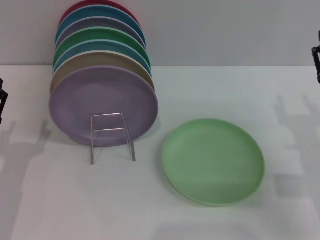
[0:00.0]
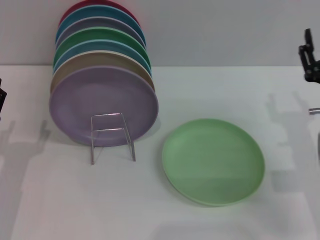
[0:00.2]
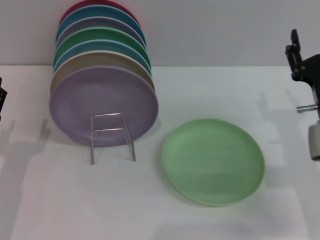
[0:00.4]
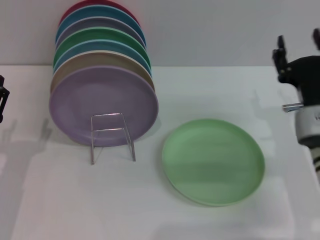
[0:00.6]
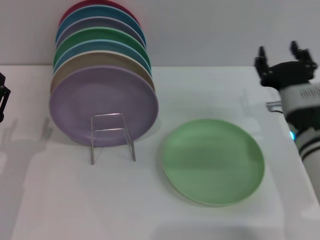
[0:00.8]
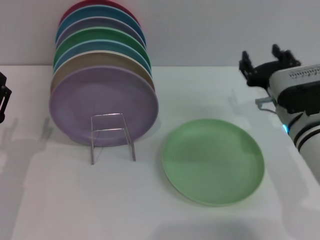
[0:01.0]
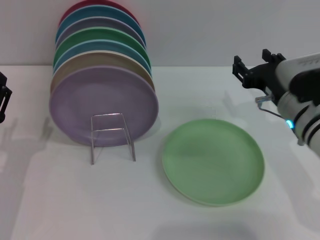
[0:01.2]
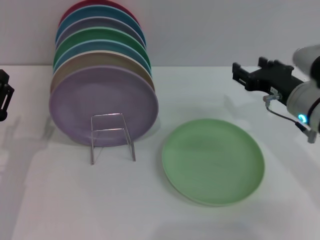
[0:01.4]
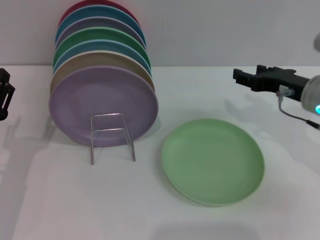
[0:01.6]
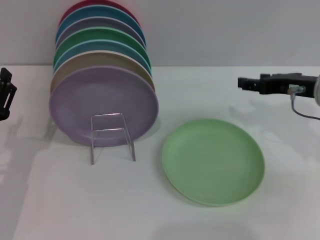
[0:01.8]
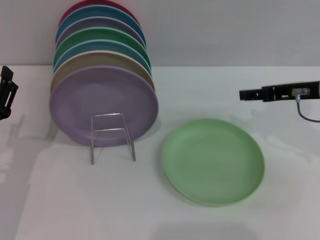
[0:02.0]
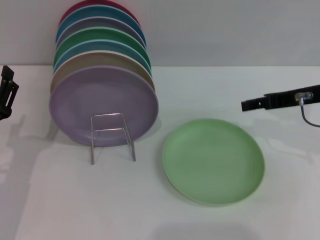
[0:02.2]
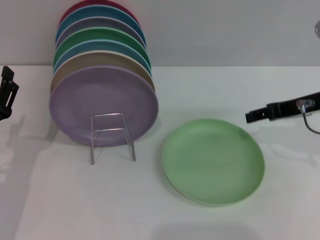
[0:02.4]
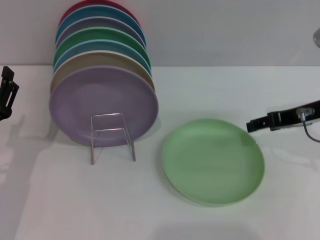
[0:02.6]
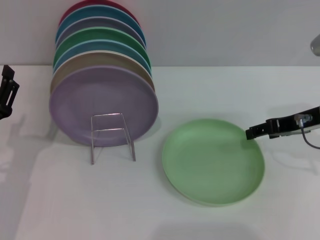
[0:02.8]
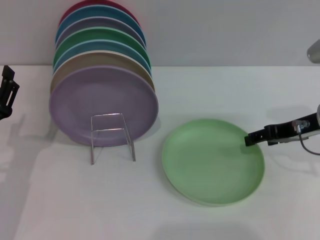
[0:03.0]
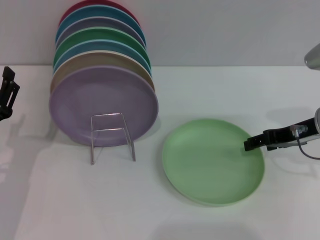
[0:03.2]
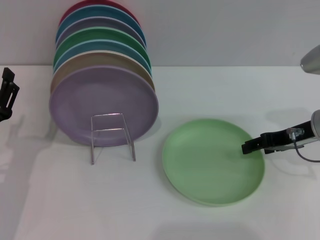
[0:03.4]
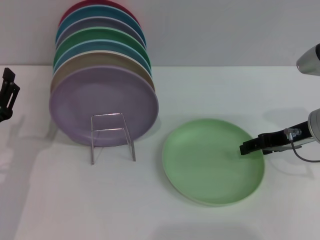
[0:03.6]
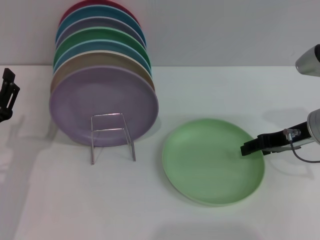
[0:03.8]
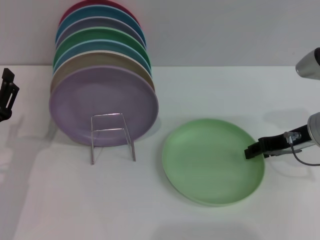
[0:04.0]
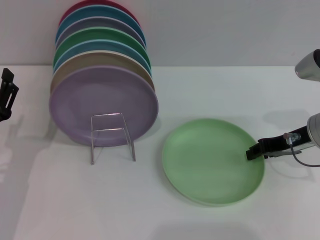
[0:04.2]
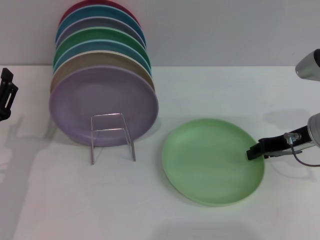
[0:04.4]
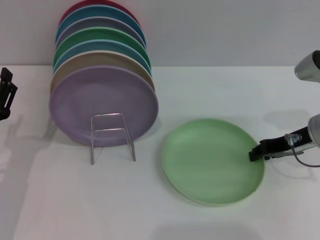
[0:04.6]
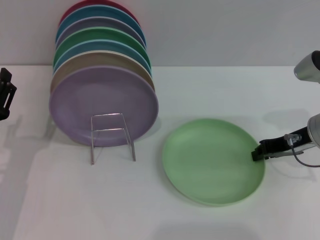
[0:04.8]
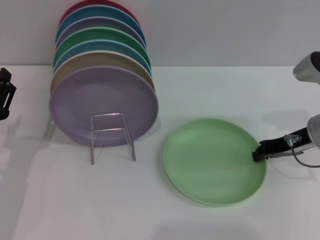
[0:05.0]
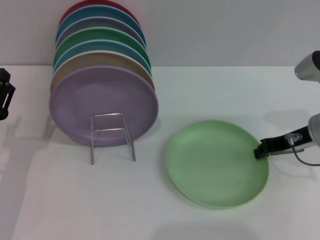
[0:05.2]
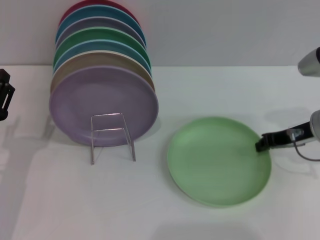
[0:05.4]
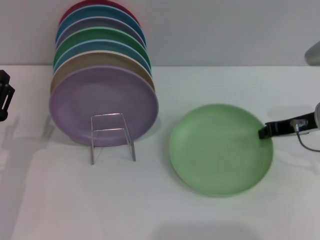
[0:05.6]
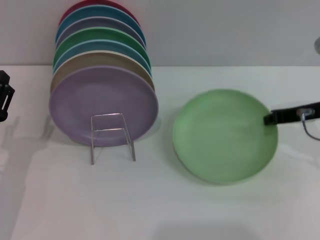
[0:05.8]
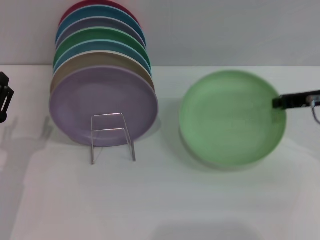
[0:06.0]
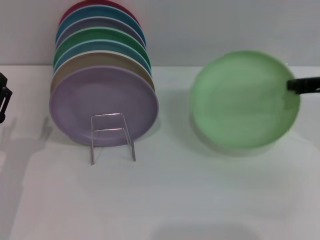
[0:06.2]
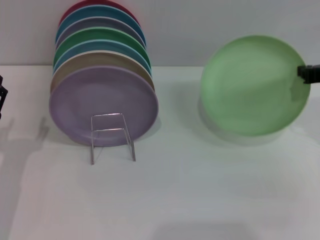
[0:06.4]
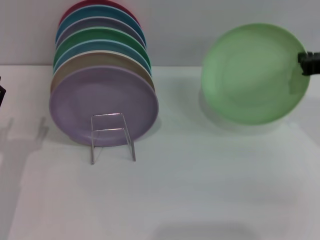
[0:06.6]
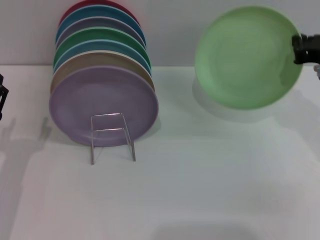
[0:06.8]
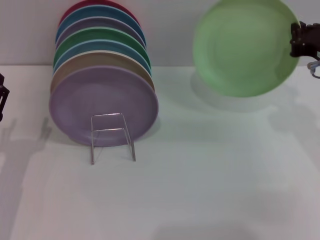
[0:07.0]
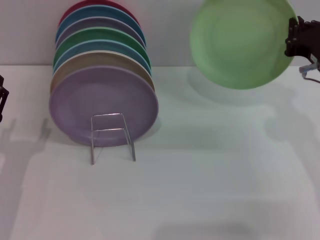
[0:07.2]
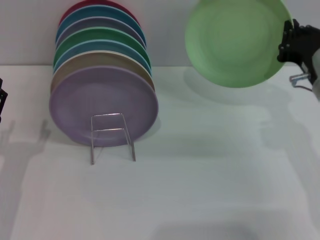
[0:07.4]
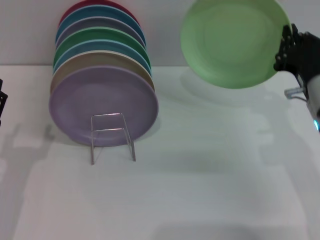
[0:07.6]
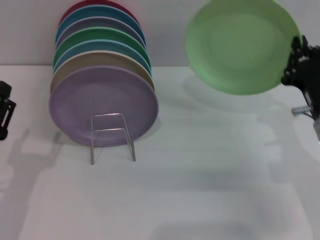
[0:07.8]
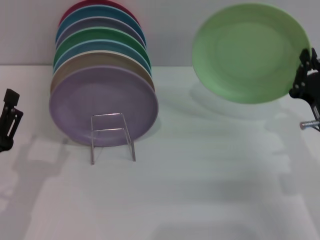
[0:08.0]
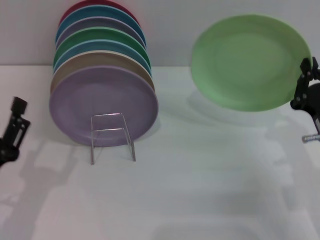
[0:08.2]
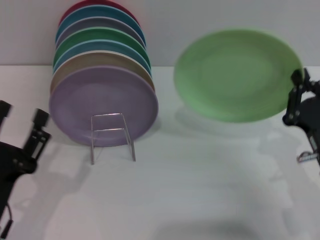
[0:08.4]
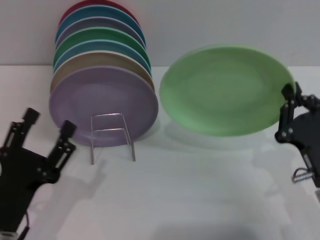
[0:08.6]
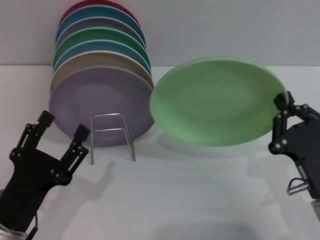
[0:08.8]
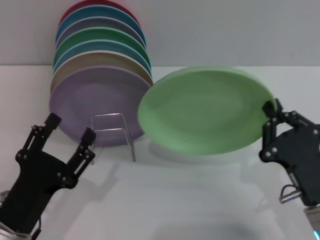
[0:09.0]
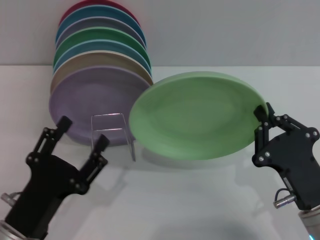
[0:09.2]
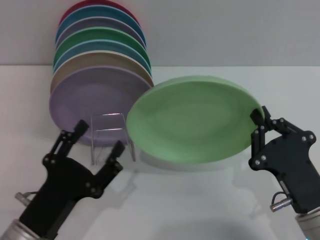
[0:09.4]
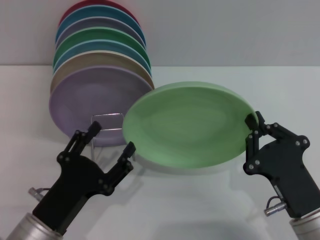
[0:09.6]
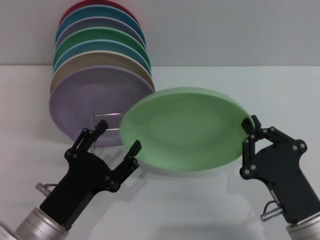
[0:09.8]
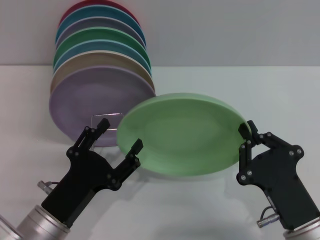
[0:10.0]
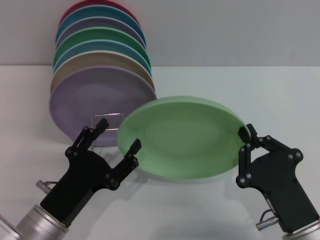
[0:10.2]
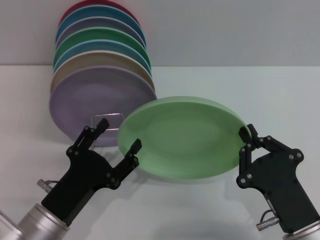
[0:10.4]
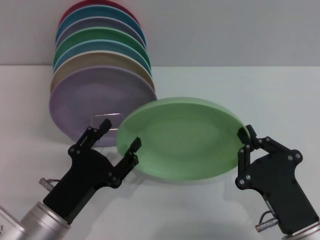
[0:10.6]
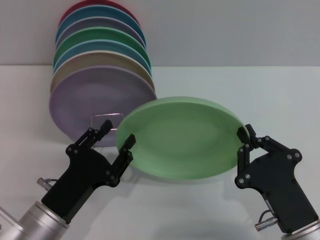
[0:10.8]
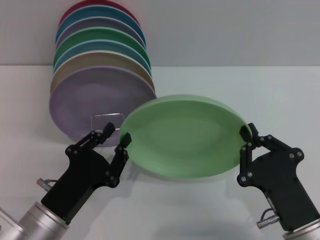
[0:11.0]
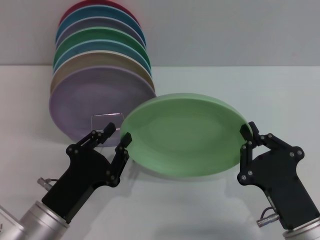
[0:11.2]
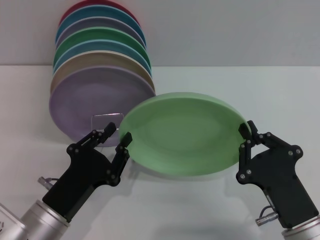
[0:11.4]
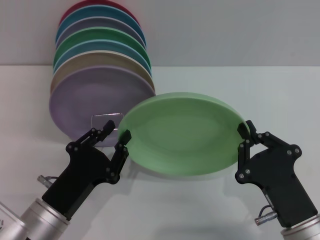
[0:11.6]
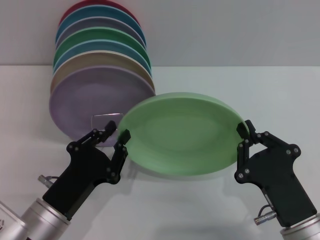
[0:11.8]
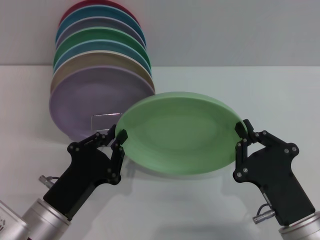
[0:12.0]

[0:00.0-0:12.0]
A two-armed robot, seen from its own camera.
Task of the whole recording: Grip the plate with one hand, pass it to the other, then set it on the shelf.
Step, 0:00.0 to 0:05.8: Pick up the plate with the right gripper.
0:00.0 to 0:01.6: The right gripper moves forward and upward, roughly 10 cm.
0:03.0 to 0:04.4: The right gripper closes up.
0:04.4 to 0:06.0: The right gripper shifts roughly 5 cm upward, and closes.
0:06.0 to 0:07.6: The right gripper moves downward and to the left, about 10 cm.
0:07.6 to 0:09.0: The right gripper is displaced backward and downward by about 15 cm. The left gripper travels to the right and backward by some 10 cm.
0:10.4 to 0:12.0: The left gripper closes.

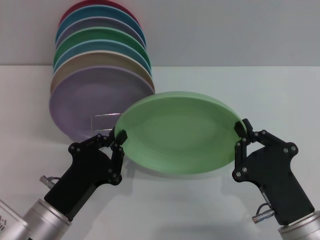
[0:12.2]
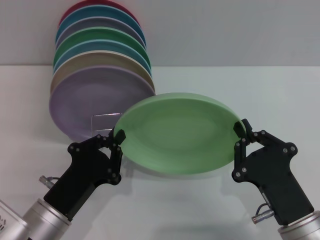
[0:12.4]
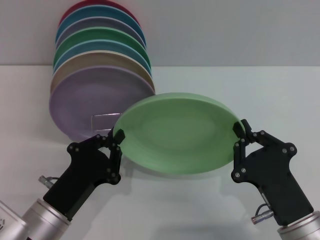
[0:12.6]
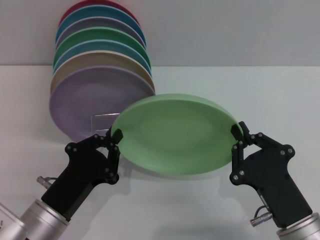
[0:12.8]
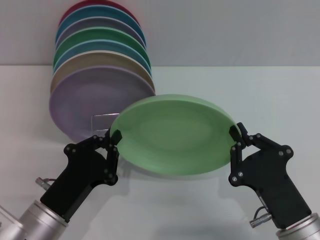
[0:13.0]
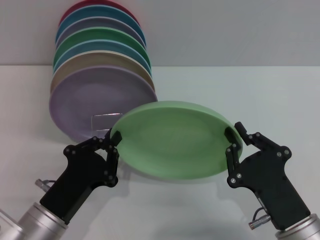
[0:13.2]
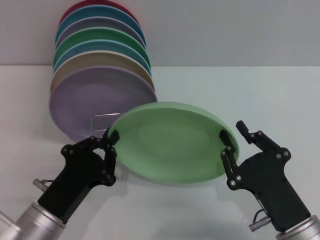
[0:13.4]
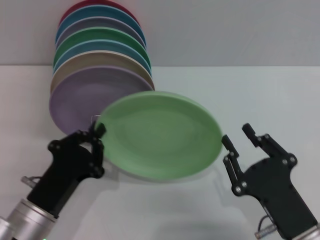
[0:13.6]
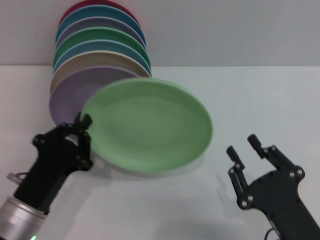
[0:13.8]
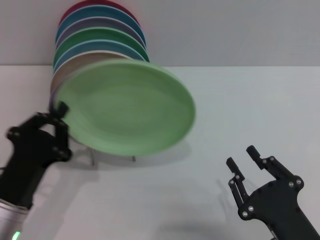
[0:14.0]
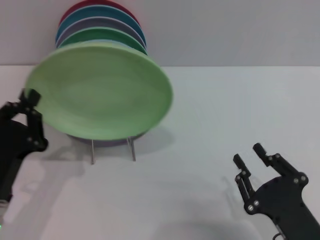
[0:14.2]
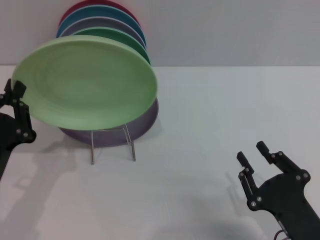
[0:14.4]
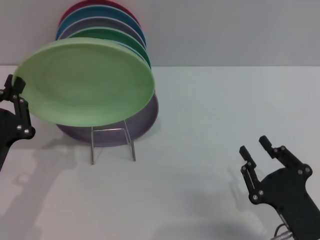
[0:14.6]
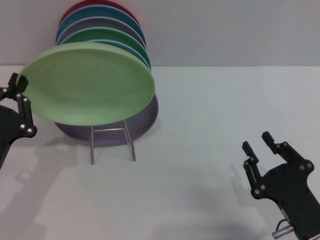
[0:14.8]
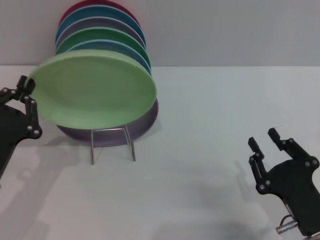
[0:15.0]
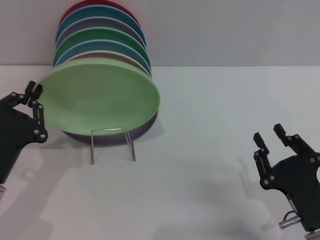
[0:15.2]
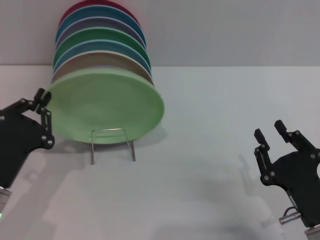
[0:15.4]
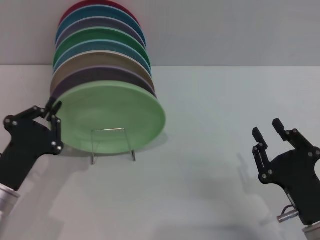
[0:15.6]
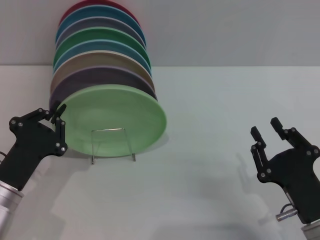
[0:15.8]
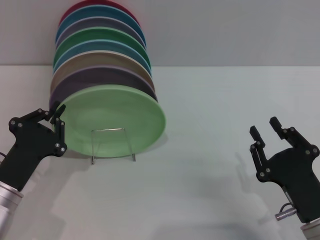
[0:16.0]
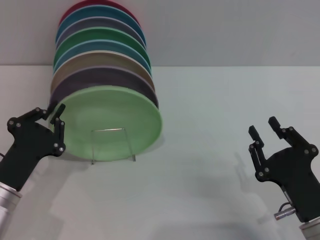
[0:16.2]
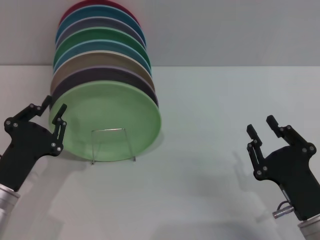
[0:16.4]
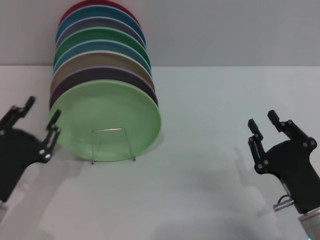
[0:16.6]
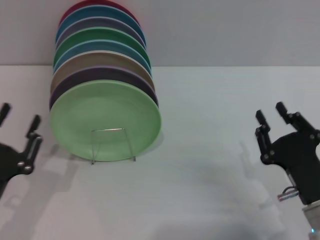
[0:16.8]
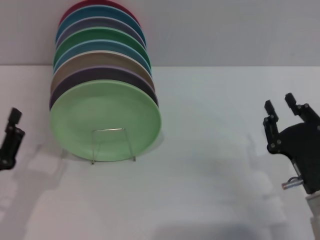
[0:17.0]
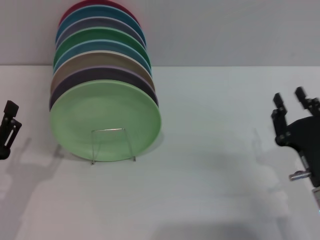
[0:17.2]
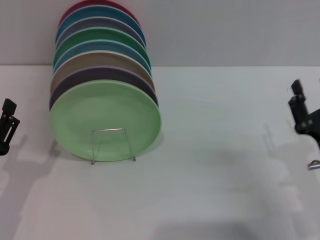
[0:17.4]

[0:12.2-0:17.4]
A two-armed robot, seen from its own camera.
Task of the whole recording: Grip the plate with one hand, pass it to the other, then set it on the shelf.
Step, 0:13.8 to 0:16.6: Place the plate on the shelf with the left gripper.
0:12.2 to 0:14.0: The right gripper opens up.
0:15.6 to 0:17.4: The left gripper opens up. The right gripper ends up some 5 cm from where it was.
